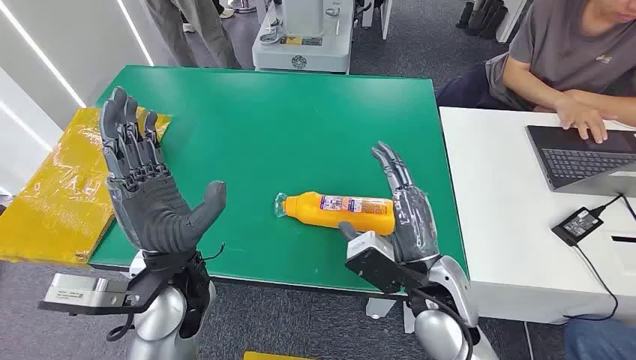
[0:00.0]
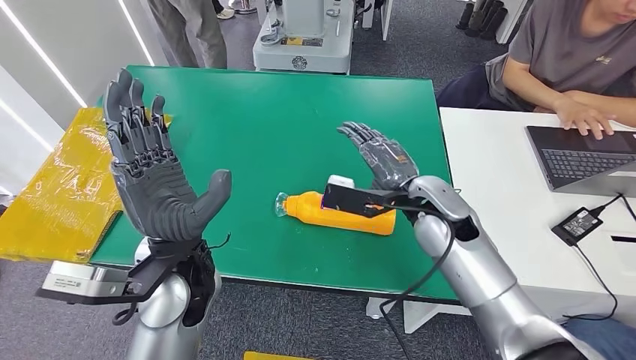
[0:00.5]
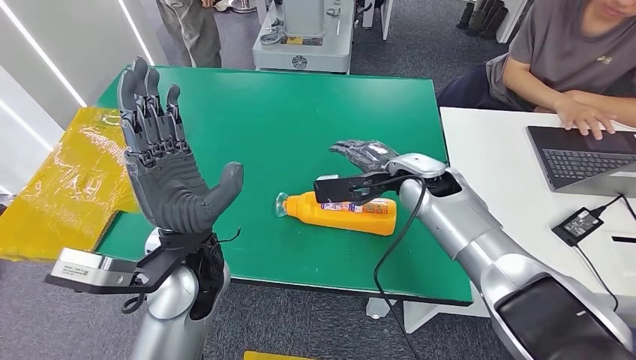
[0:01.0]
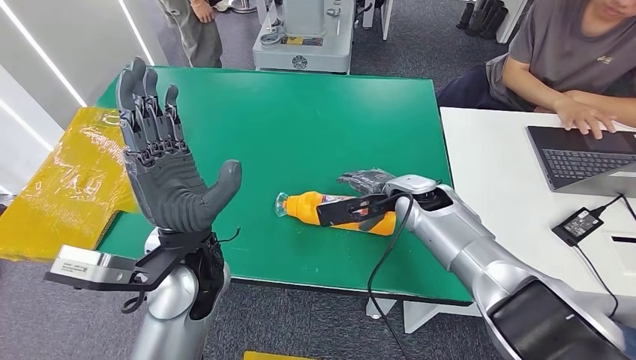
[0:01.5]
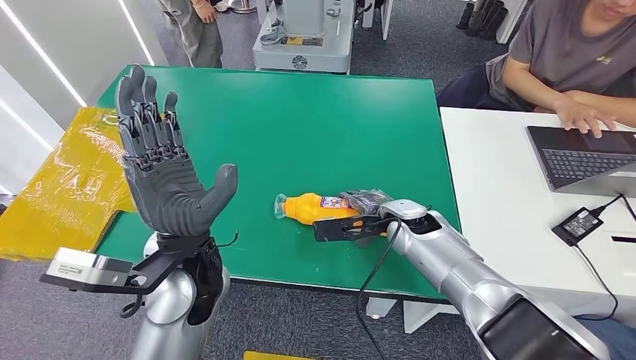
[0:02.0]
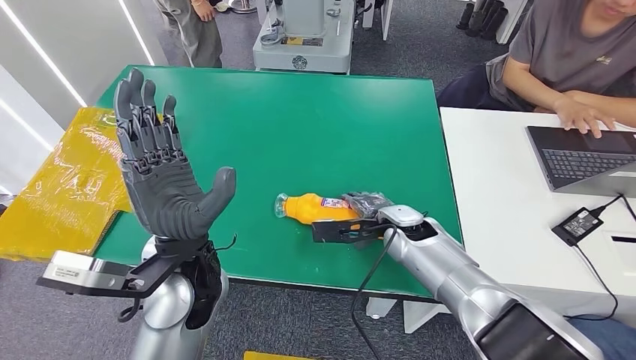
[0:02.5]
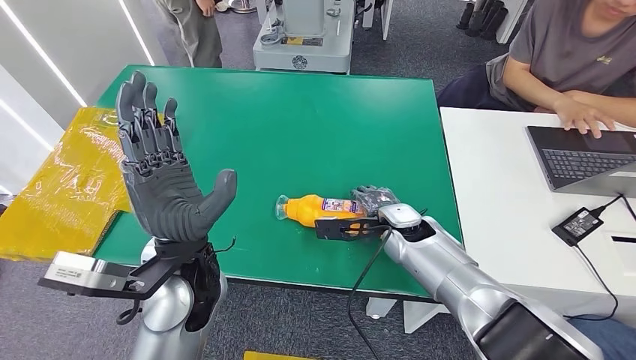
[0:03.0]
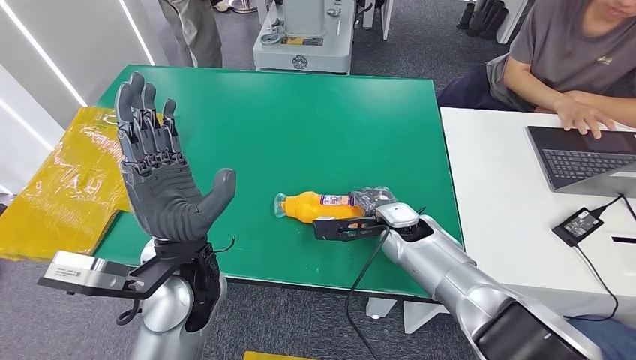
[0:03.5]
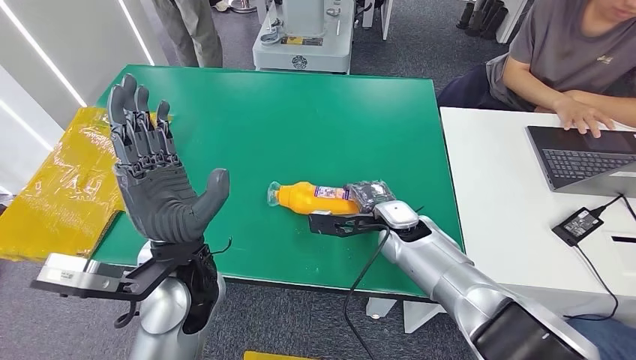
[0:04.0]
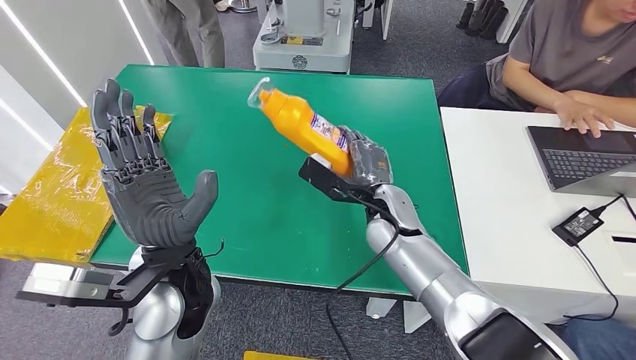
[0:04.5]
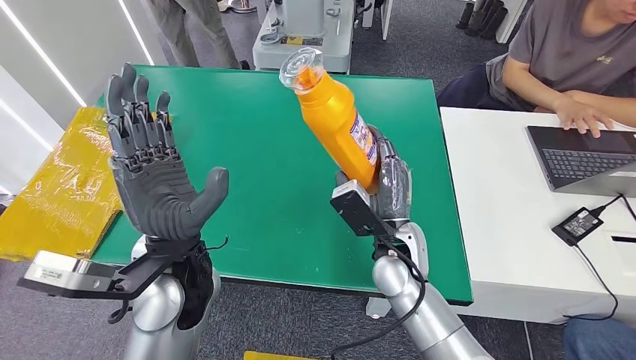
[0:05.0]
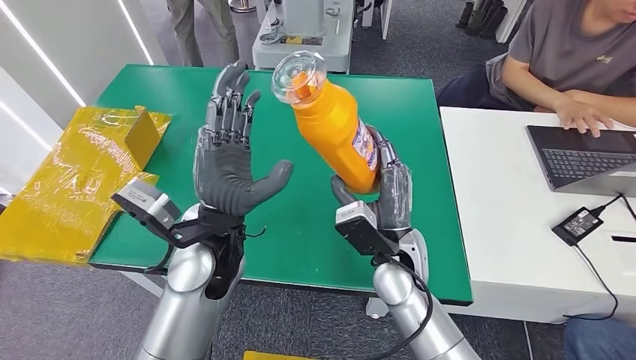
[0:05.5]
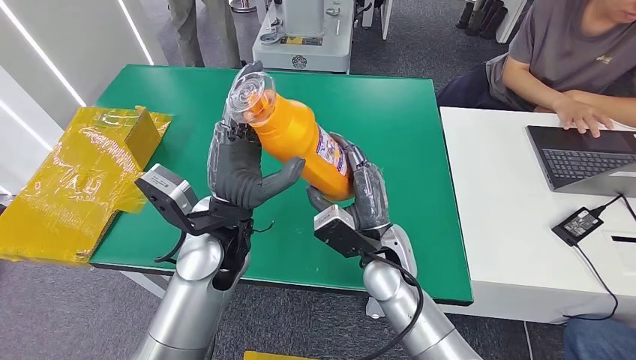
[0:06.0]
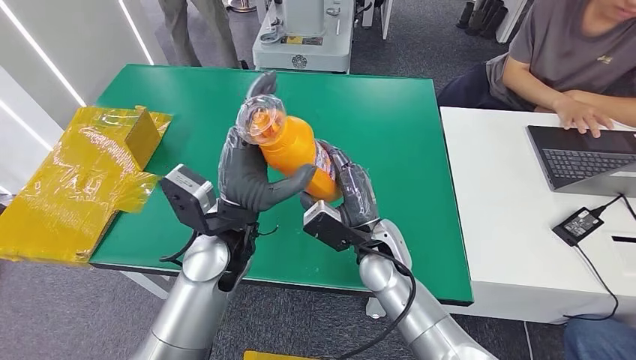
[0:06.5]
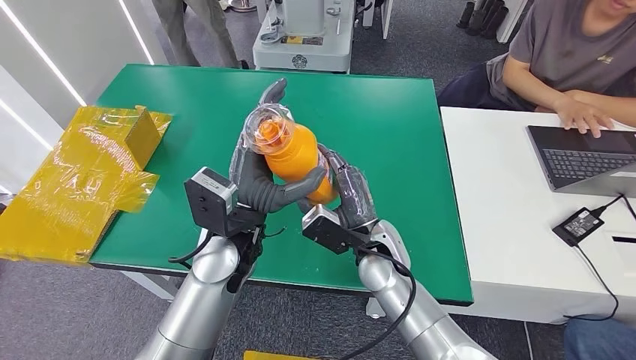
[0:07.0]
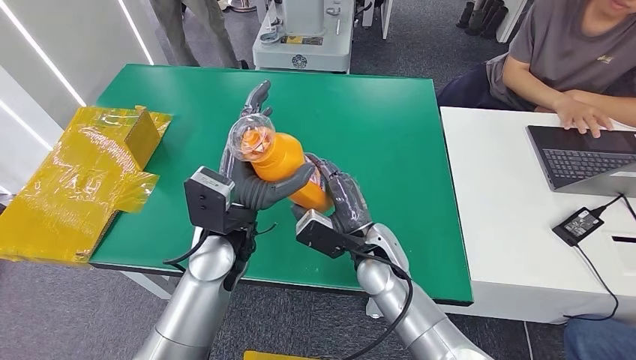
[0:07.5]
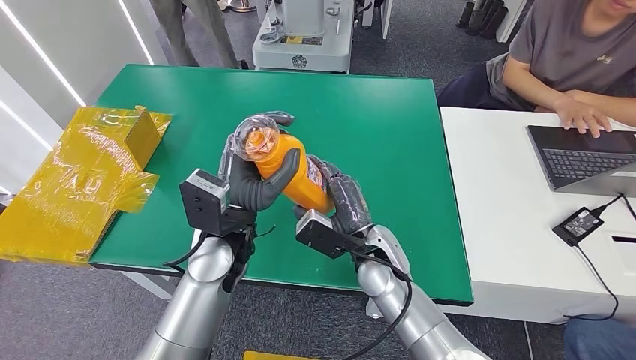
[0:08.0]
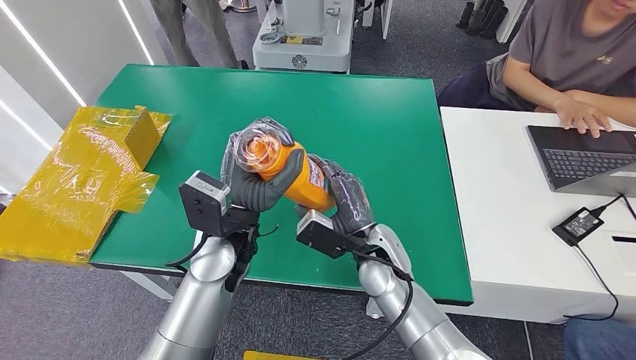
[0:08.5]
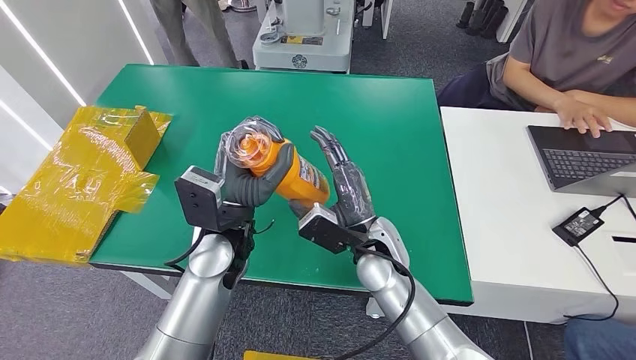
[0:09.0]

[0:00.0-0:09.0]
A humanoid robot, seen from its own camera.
Step, 0:00.0 to 0:04.5: Pick up the bottle from the table.
0:07.0 to 0:09.0: The hands stay close to where they were, moving slightly.

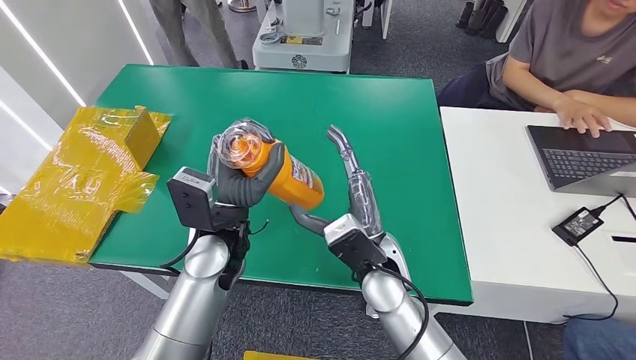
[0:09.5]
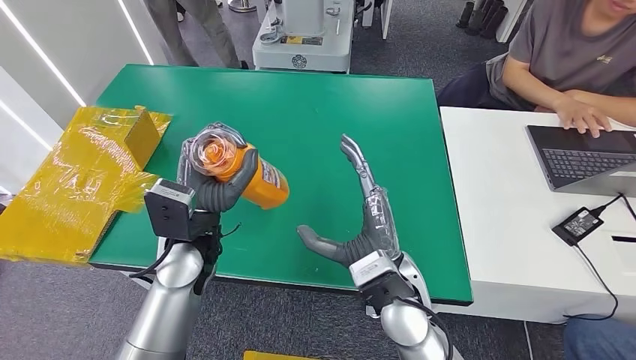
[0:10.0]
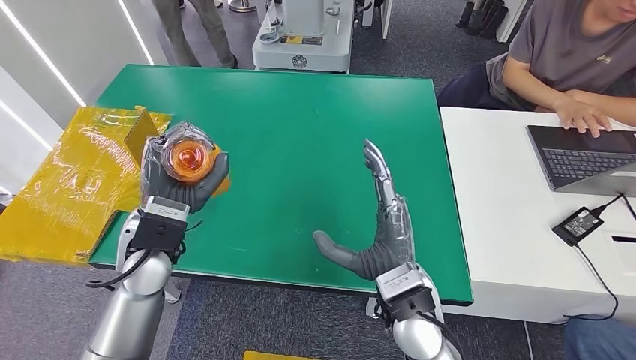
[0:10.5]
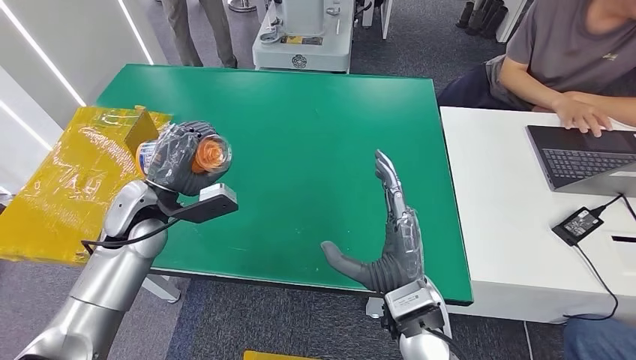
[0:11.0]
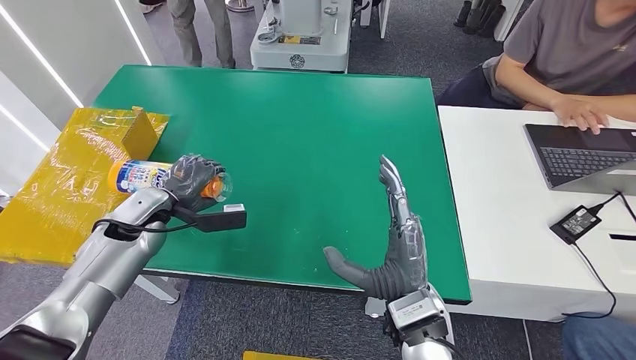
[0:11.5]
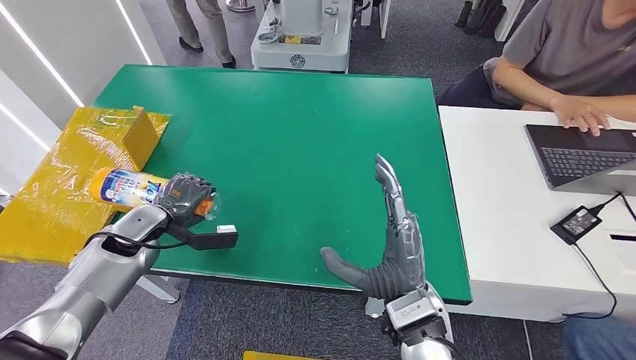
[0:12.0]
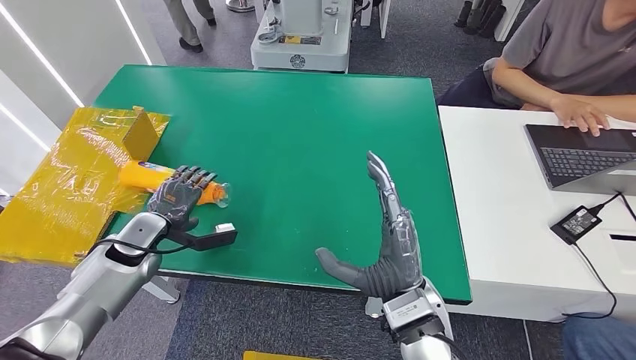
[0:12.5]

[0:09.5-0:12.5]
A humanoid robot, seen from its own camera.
Step, 0:09.5 to 0:12.5: Turn the bottle to the front side.
0:09.5 to 0:11.0: The left hand is displaced to the left by some 20 cm; the right hand heads backward, covering roughly 5 cm.
0:11.0 to 0:12.5: The left hand is displaced to the left and downward by approximately 10 cm.
